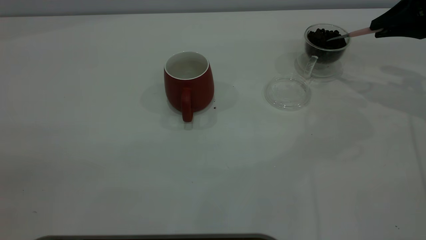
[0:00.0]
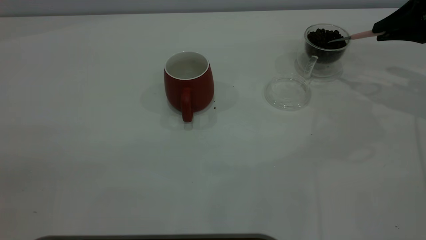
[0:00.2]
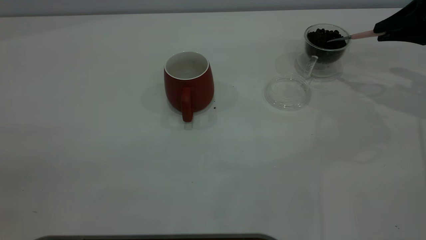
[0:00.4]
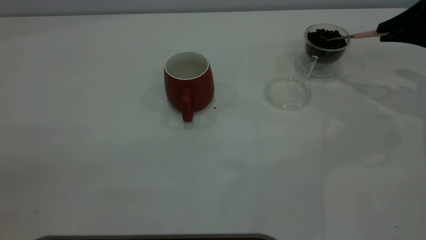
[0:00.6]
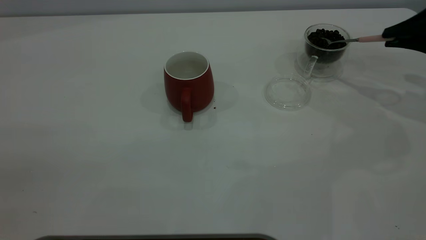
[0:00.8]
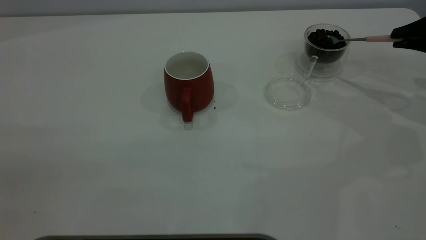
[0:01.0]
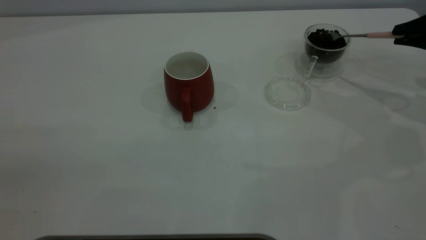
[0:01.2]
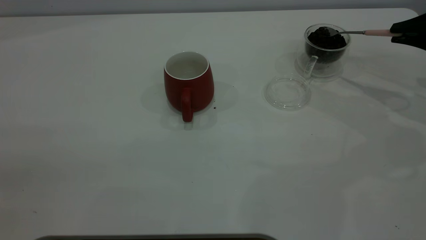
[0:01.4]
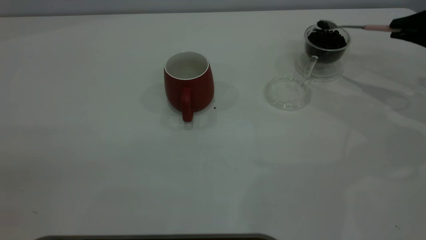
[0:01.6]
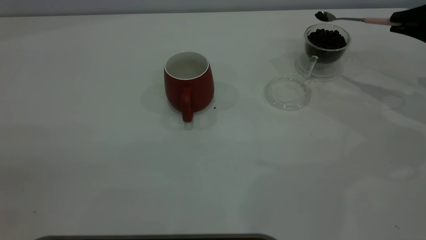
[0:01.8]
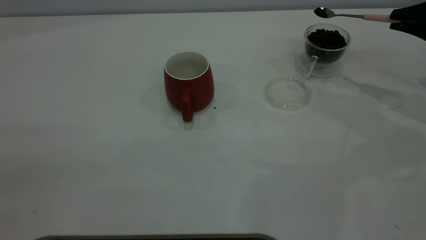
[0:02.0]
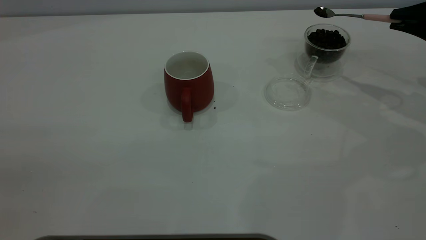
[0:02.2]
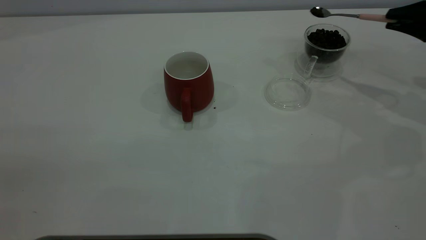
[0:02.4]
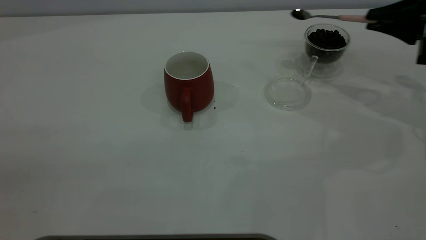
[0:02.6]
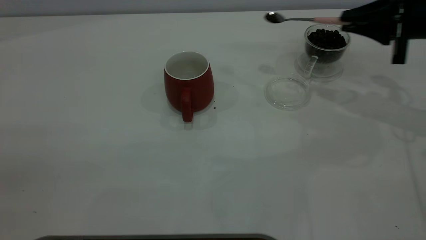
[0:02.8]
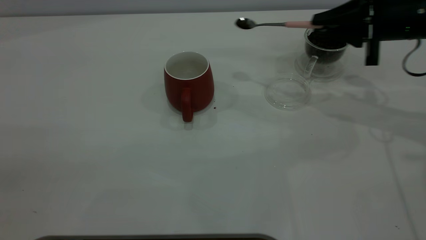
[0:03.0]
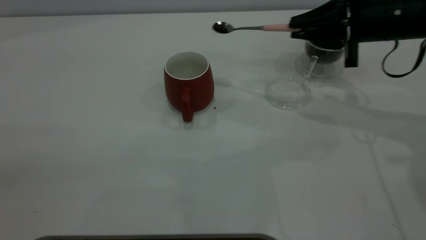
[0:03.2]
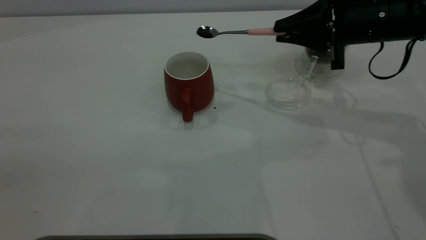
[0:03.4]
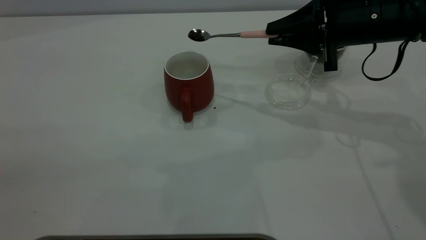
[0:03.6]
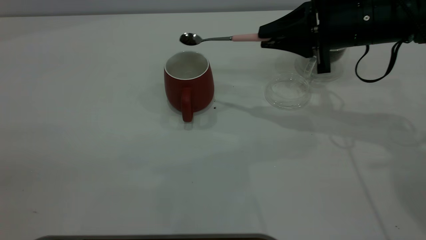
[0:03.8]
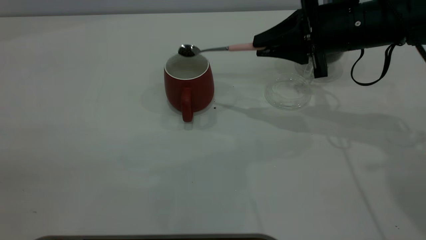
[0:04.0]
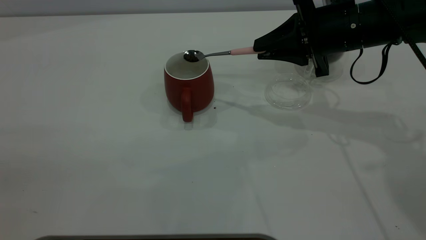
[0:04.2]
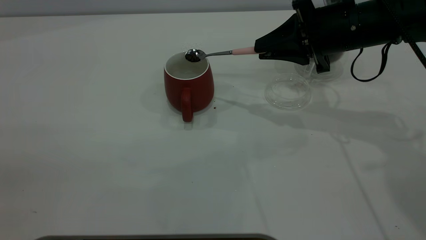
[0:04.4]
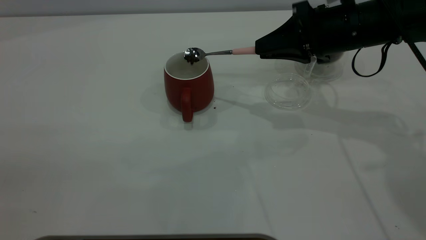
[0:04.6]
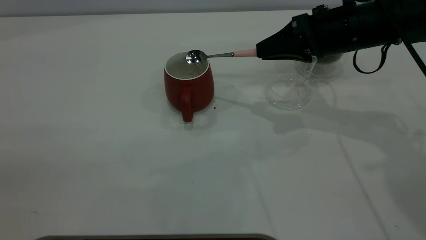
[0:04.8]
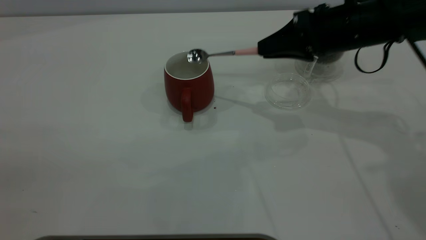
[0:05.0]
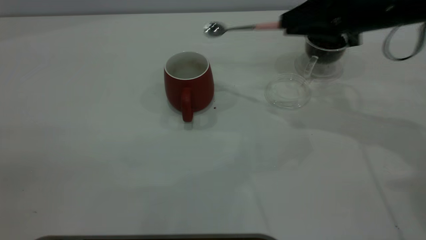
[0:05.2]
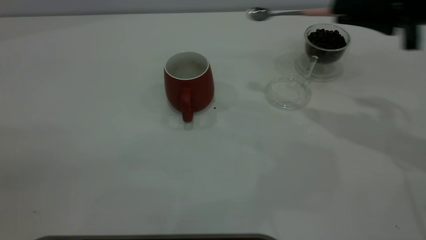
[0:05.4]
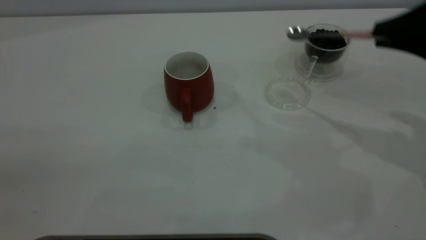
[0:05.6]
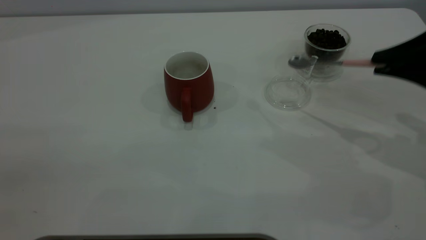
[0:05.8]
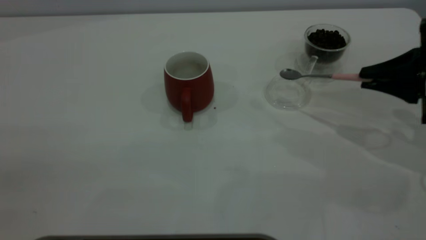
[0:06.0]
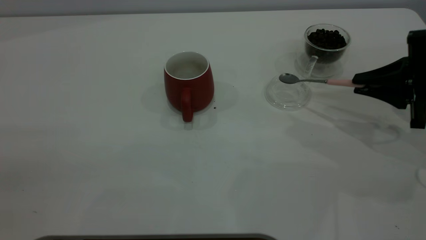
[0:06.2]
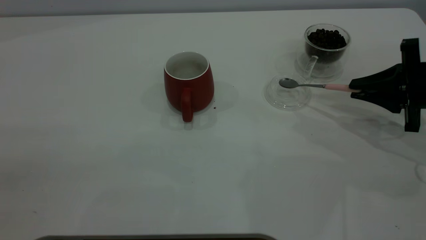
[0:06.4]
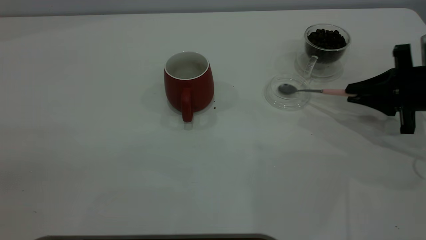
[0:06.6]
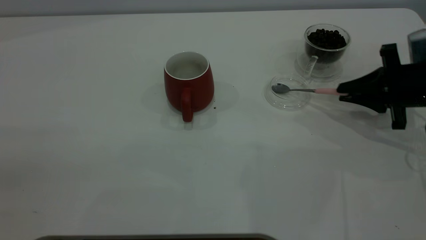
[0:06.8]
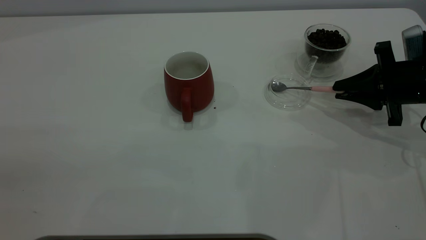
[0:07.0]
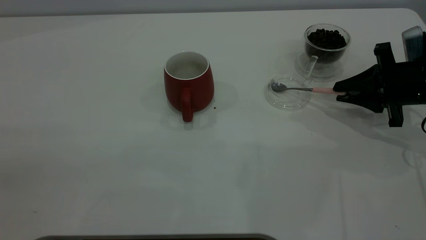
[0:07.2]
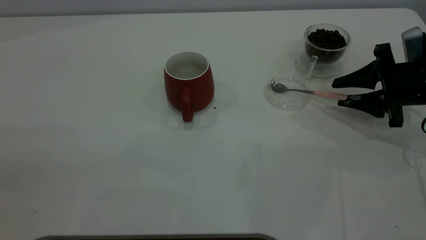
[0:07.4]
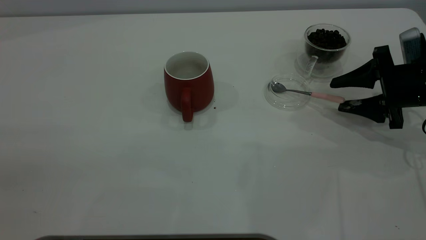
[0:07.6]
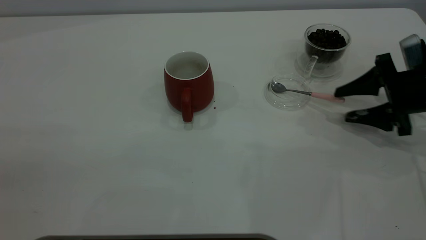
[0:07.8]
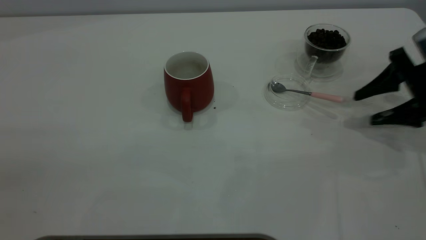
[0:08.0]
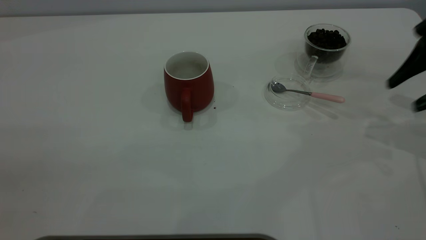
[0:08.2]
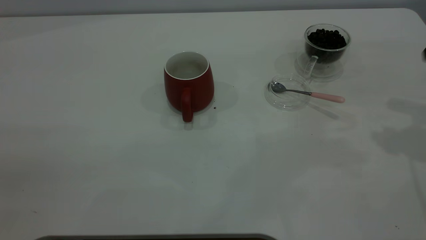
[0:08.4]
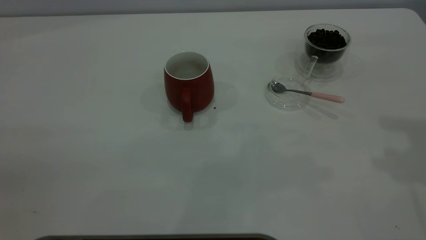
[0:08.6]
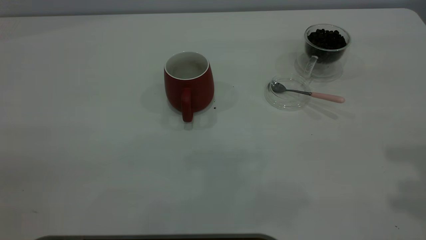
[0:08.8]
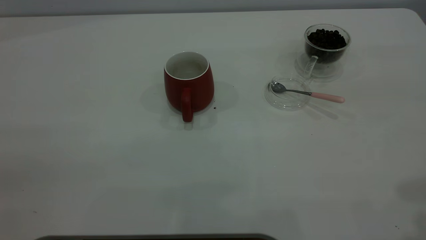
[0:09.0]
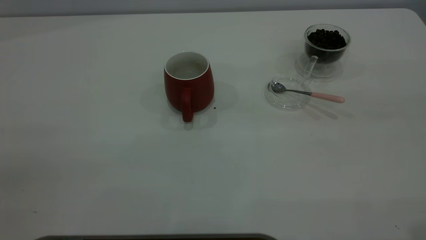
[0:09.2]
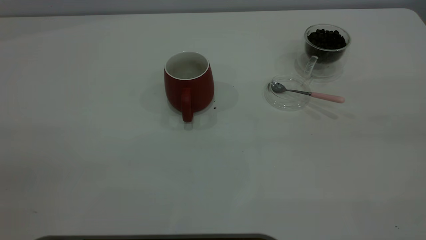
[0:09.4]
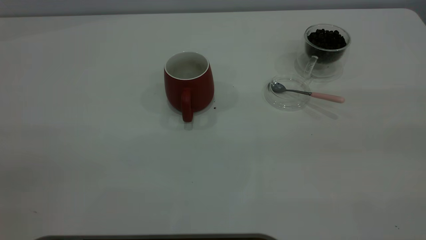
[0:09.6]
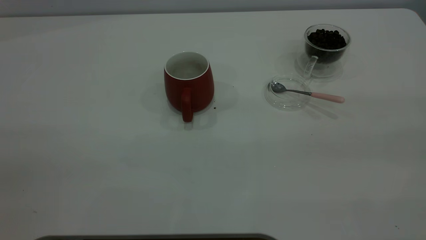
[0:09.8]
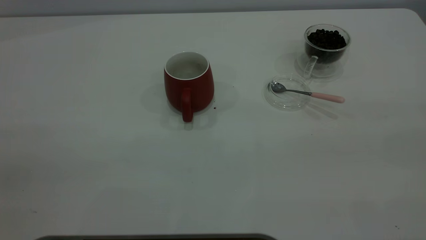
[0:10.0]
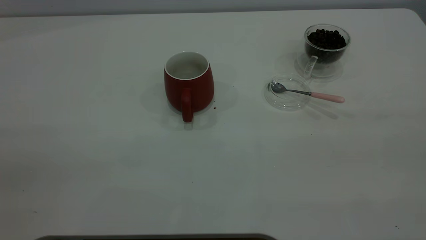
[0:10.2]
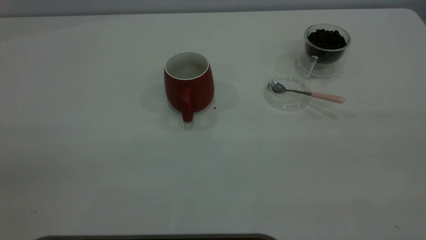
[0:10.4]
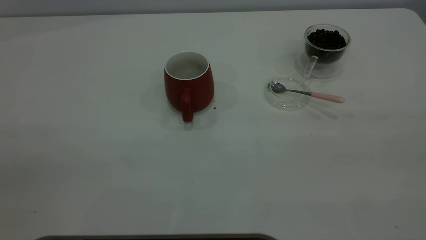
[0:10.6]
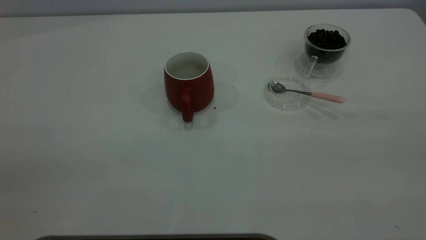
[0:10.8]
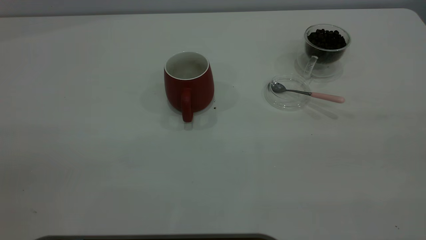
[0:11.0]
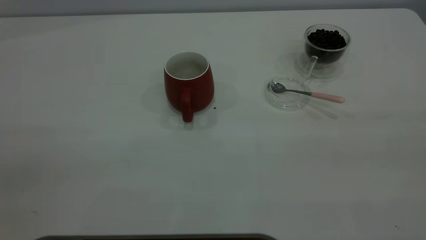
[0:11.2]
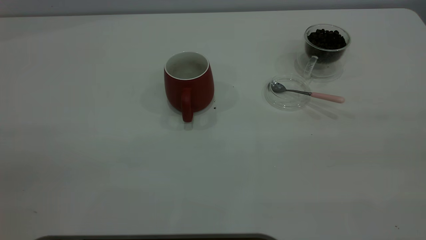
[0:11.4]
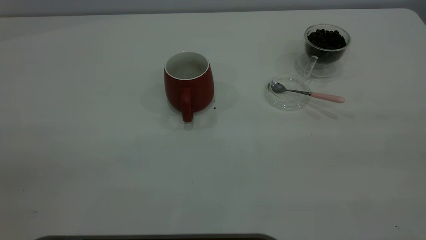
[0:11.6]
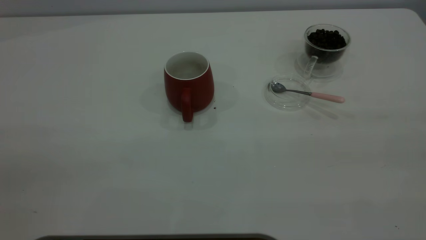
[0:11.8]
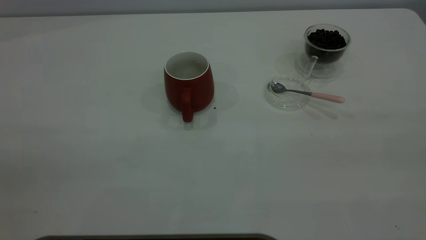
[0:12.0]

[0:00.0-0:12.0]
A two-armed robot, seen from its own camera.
Task of the whole recording: the left gripper place the red cup in the center of the table, the right gripper take the pink spoon from the cup lid and scoop out the coffee beans from the coffee cup and put them into the red cup, the right gripper put the spoon back into the cup lid.
Step, 0:00.0 to 0:05.0: Scoop a spoonful of beans into the cup.
Step, 0:05.2 to 0:08.0: Place the spoon back in its original place.
0:00.0 to 0:01.6: The right gripper ends up some 5 cm from where it was.
0:01.6 to 0:03.0: The right gripper goes some 10 cm to the left.
0:03.0 to 0:04.4: The right gripper goes about 10 cm to the left.
0:04.4 to 0:06.0: The right gripper shifts about 15 cm to the right and backward.
0:06.0 to 0:07.6: The right gripper is displaced downward by roughly 5 cm, and opens up.
0:07.6 to 0:09.0: The right gripper travels upward and backward by about 40 cm.
0:10.4 to 0:12.0: Both grippers stay put.
